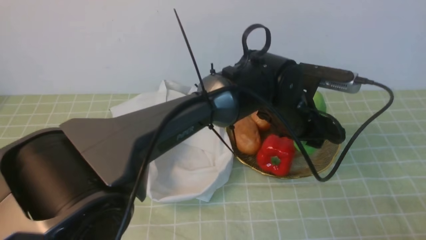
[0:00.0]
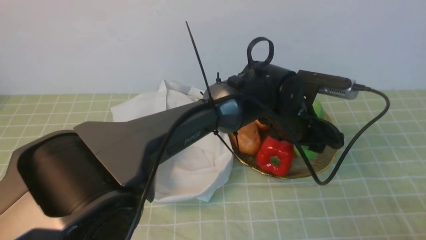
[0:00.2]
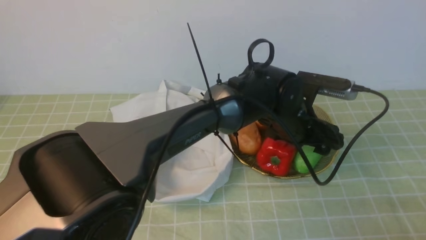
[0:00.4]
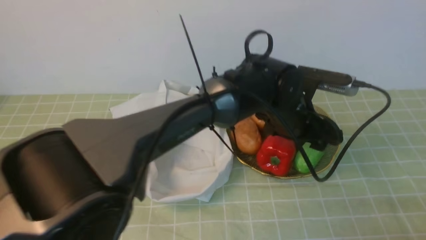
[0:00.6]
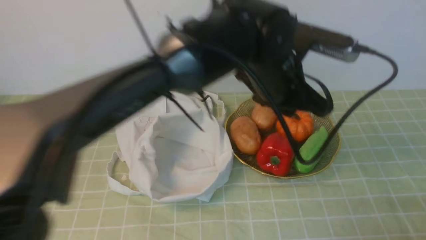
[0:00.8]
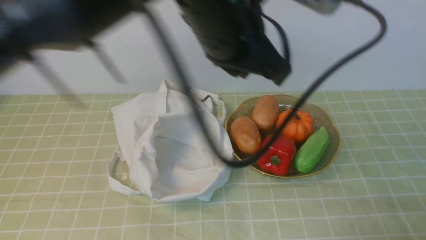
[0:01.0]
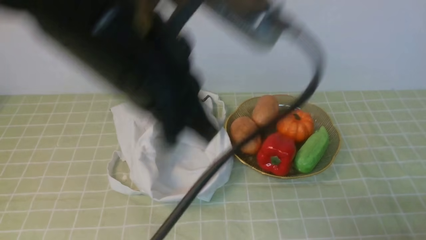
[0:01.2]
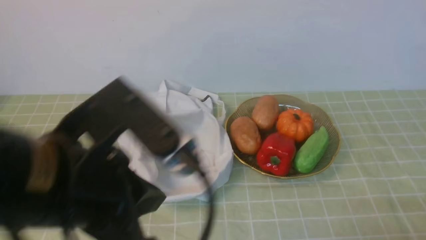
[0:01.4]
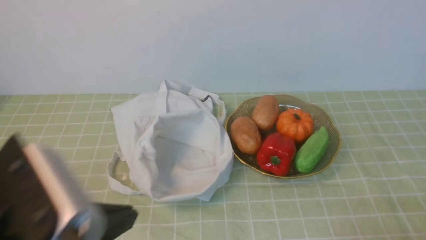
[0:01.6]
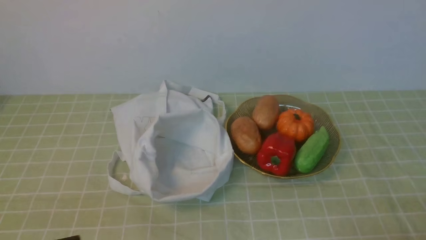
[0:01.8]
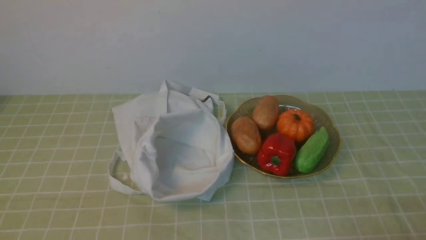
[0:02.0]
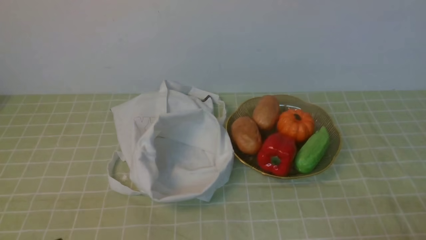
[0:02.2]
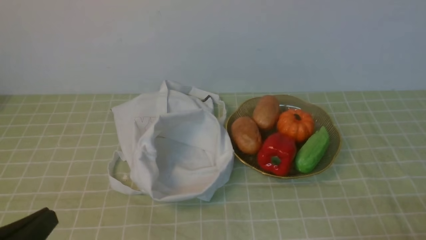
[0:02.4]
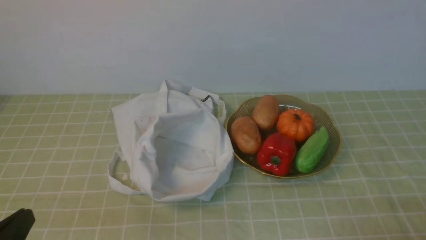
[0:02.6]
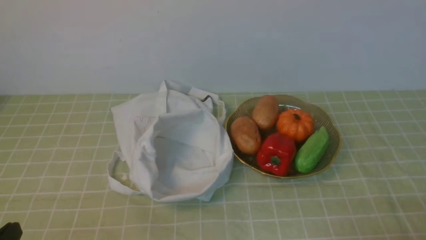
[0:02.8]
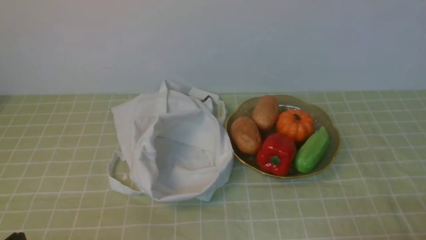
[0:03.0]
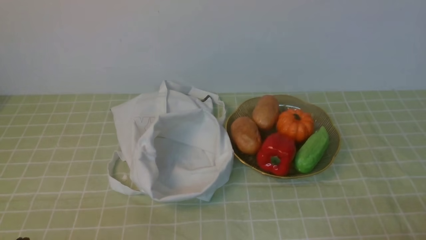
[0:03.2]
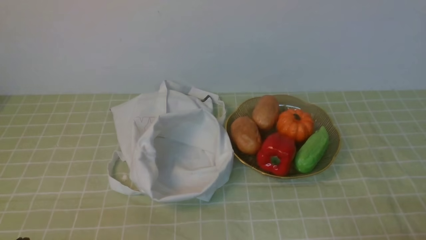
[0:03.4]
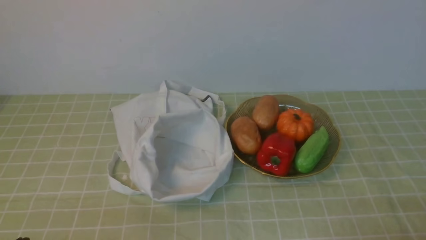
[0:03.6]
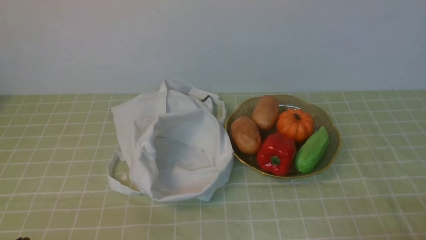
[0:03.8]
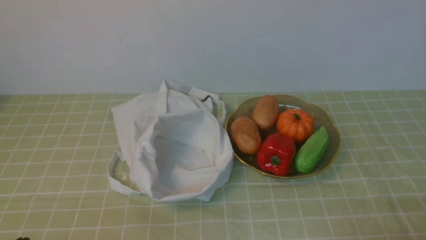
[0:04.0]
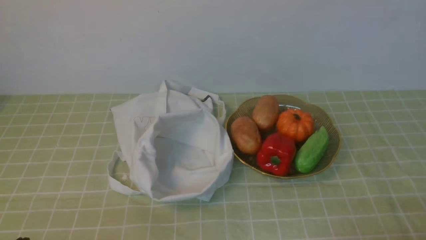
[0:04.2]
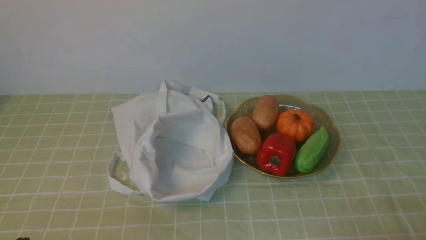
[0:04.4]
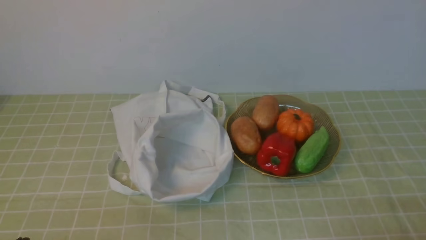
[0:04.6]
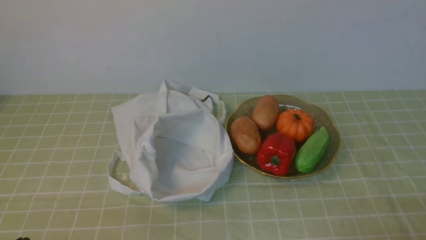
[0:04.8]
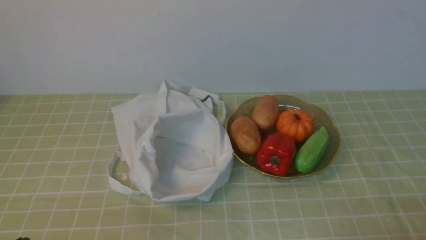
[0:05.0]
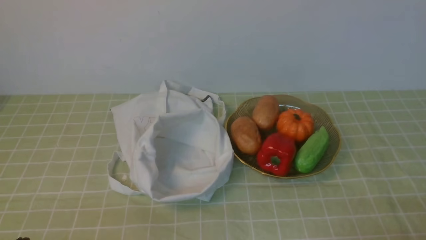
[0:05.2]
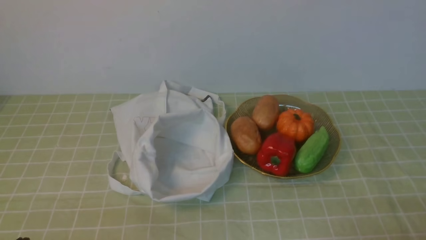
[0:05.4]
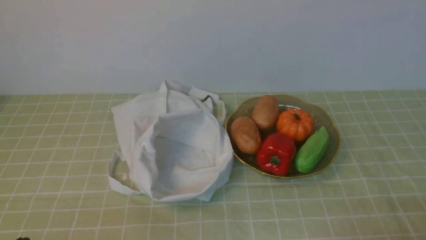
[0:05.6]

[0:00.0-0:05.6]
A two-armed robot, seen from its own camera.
Task of the whole recording: take vegetables from bag on green coffee tablecloth place on plate.
0:00.0 to 0:01.4: The left gripper heads to the left, backward and upward, covering about 35 cm, and closes up.
0:01.4 to 0:02.8: The left gripper heads downward, to the left and backward, covering about 20 cm.
0:04.2 to 0:05.6: The two grippers keep their place.
